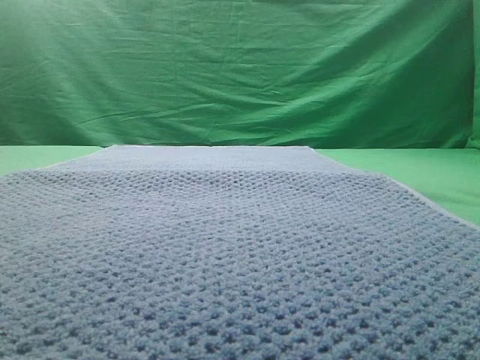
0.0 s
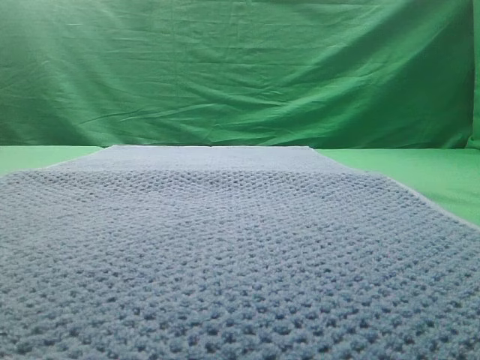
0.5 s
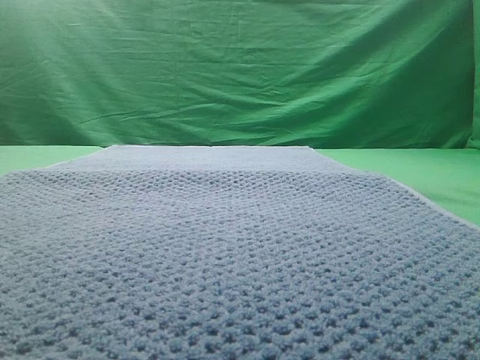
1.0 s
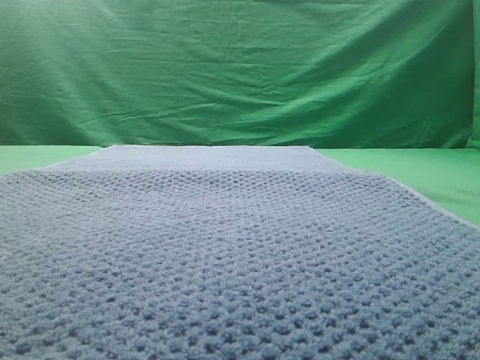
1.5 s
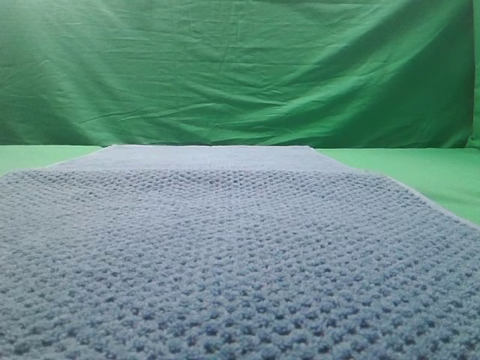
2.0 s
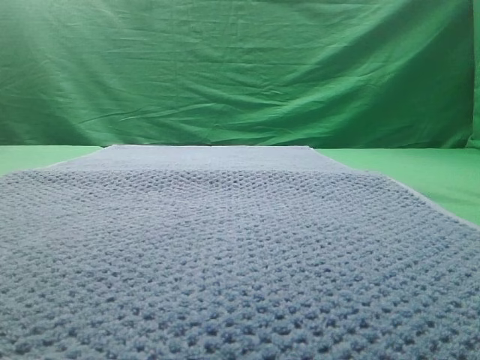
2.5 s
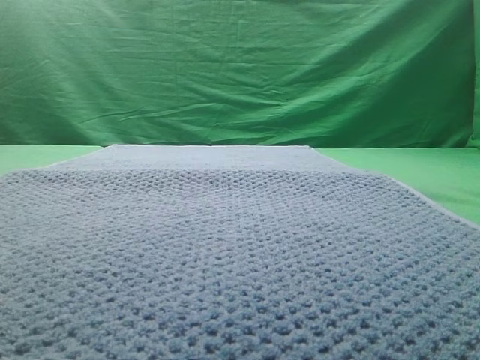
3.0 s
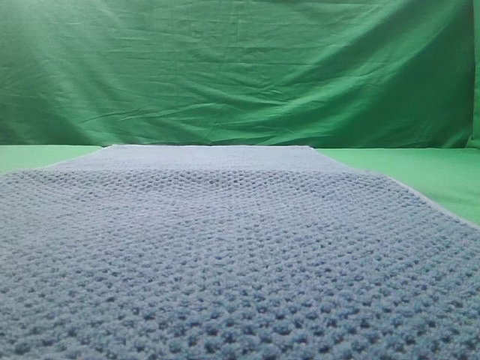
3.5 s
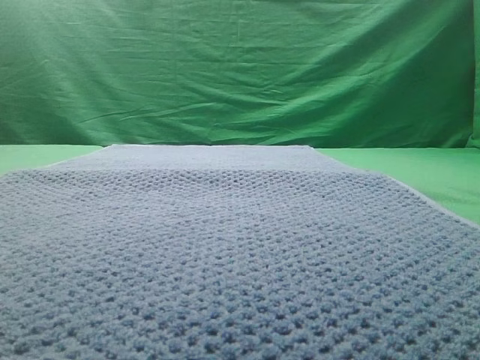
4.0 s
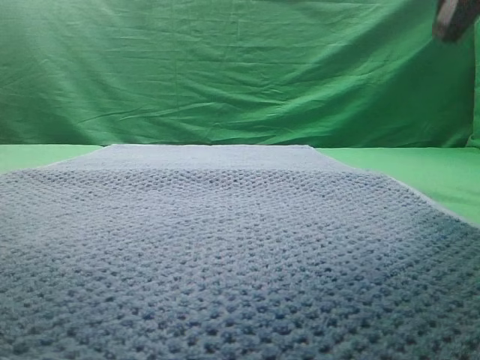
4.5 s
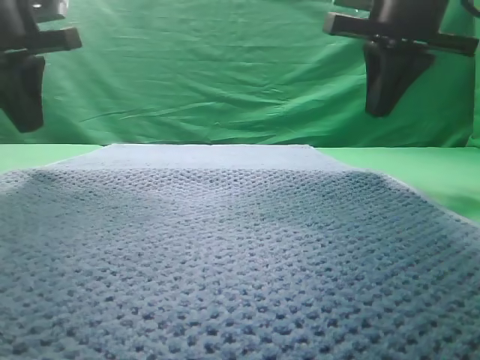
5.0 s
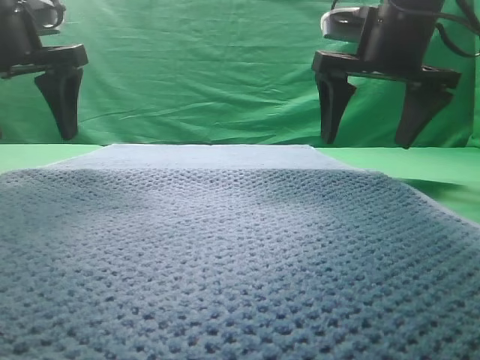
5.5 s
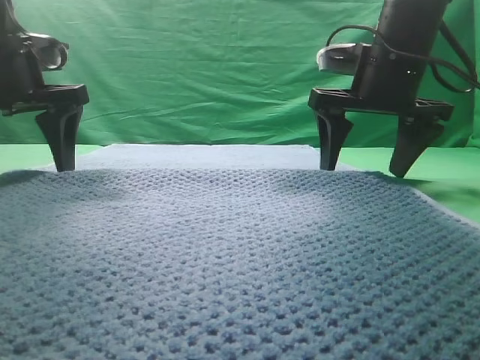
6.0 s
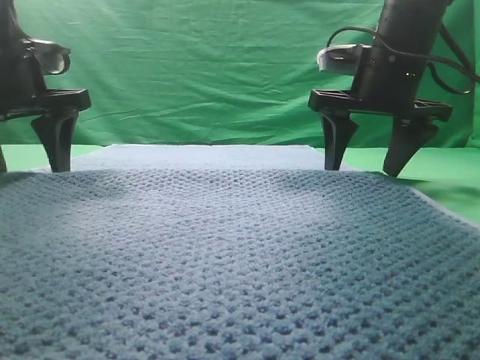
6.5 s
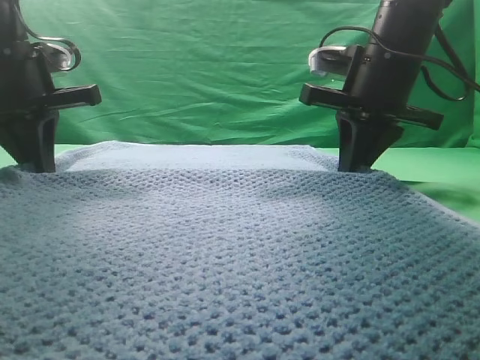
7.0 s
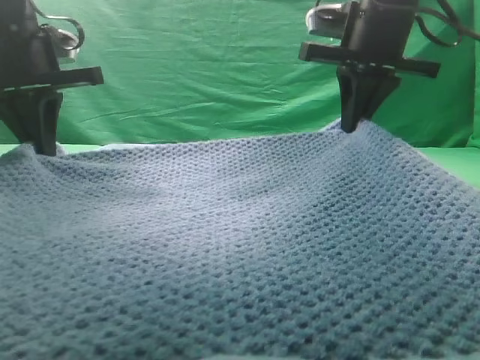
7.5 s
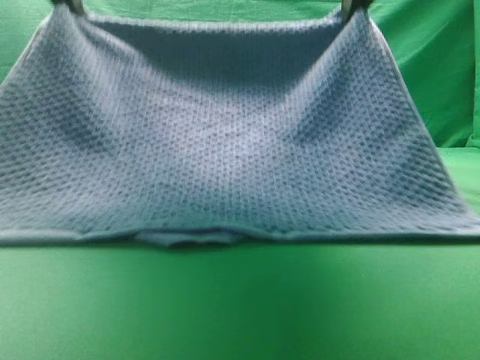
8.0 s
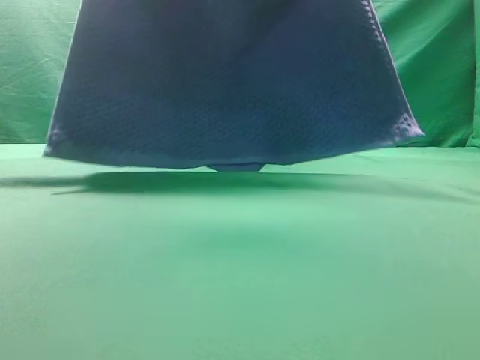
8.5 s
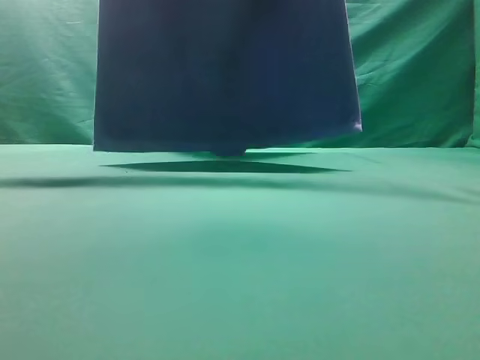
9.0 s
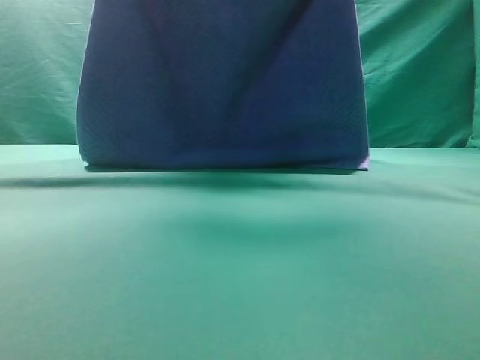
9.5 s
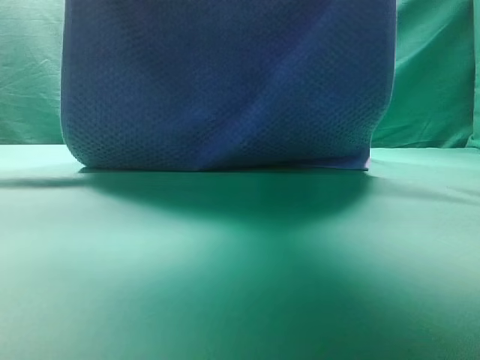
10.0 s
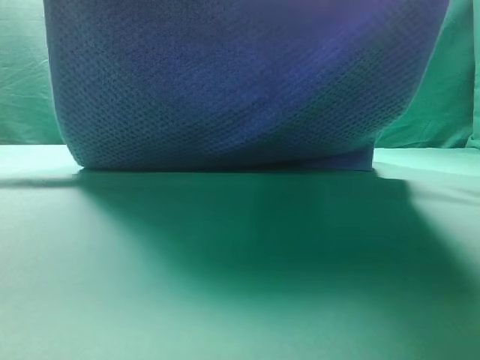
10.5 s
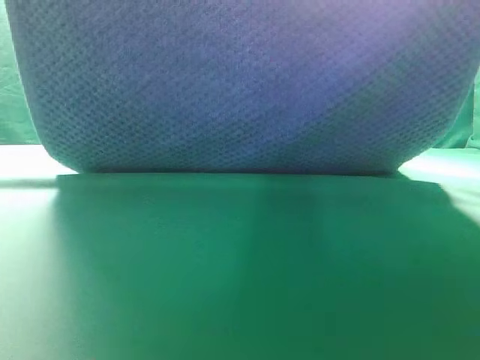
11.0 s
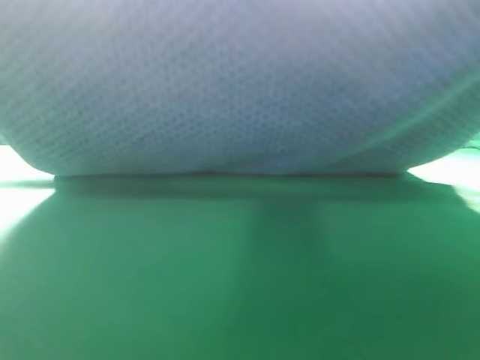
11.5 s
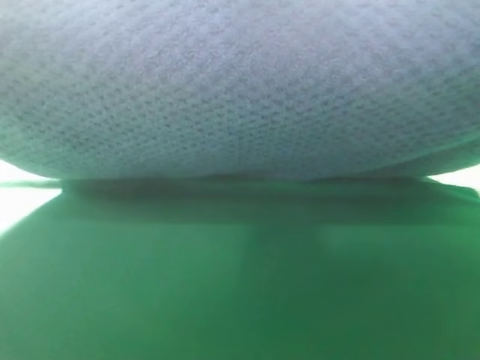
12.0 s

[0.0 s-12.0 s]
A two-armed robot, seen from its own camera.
Task of the whole recording: fold the towel on the table twice.
Step, 0.0 to 8.5 s: pick up the towel with two arm.

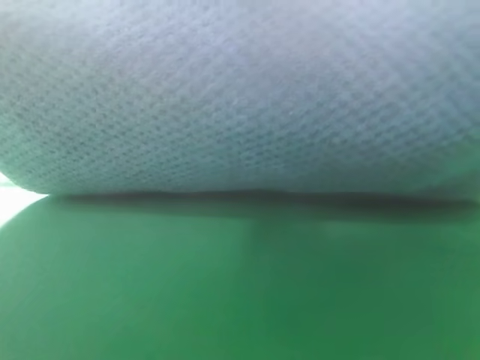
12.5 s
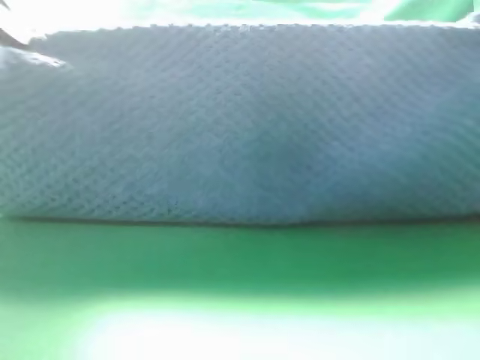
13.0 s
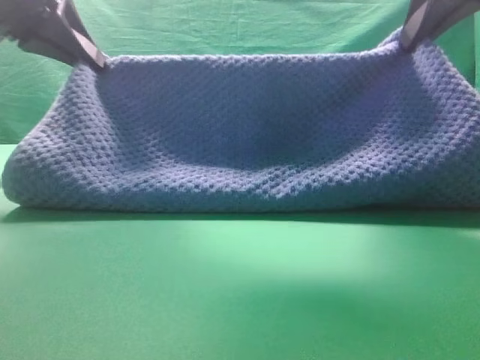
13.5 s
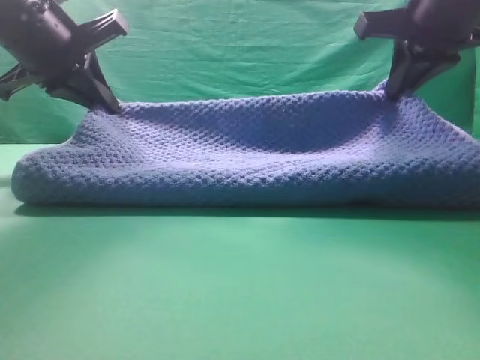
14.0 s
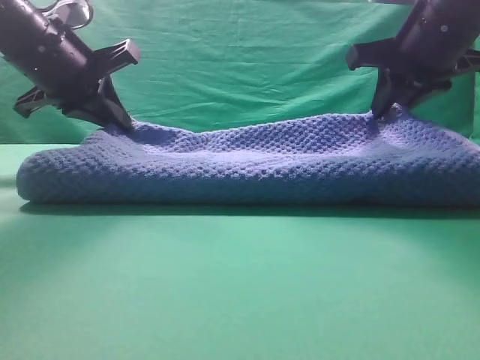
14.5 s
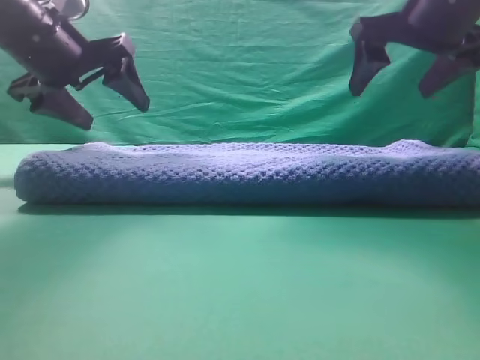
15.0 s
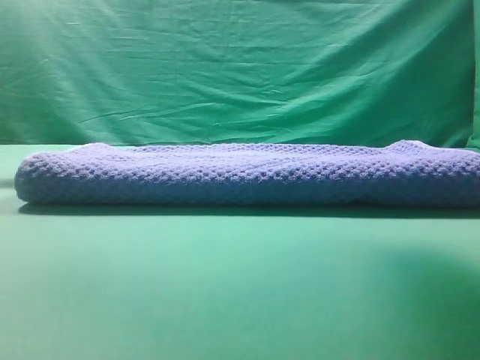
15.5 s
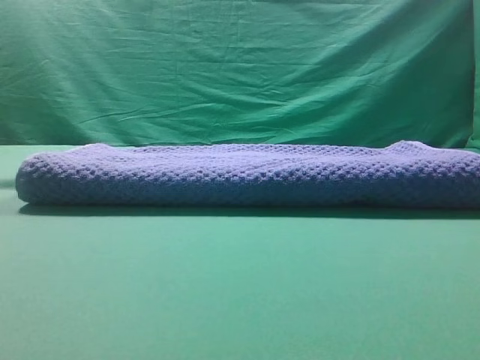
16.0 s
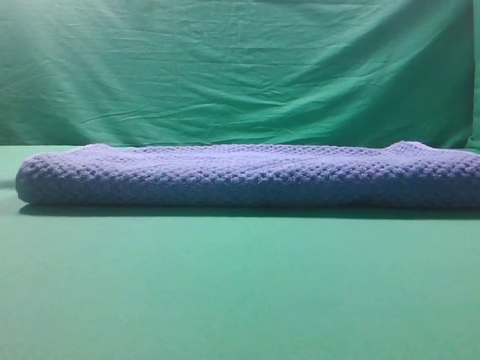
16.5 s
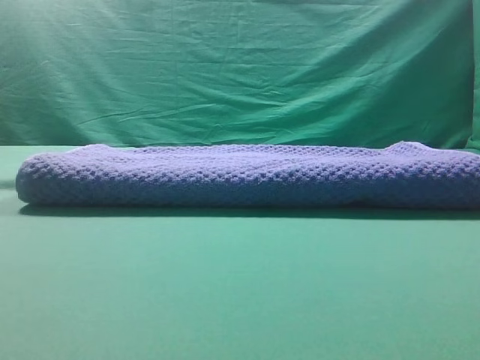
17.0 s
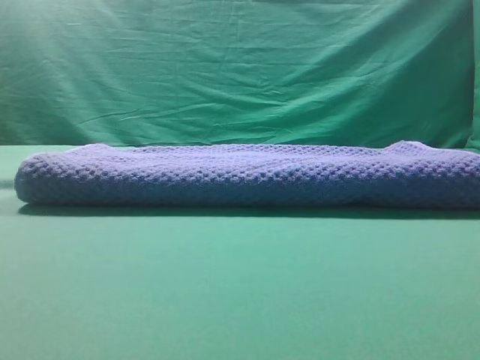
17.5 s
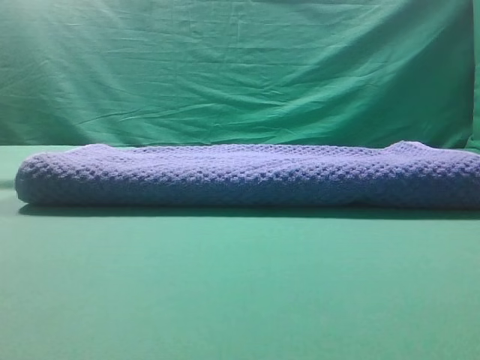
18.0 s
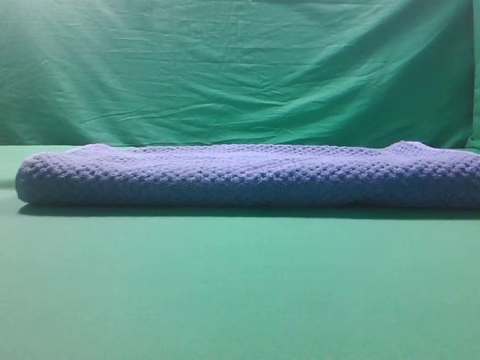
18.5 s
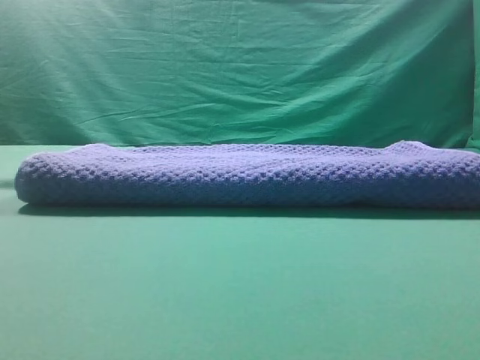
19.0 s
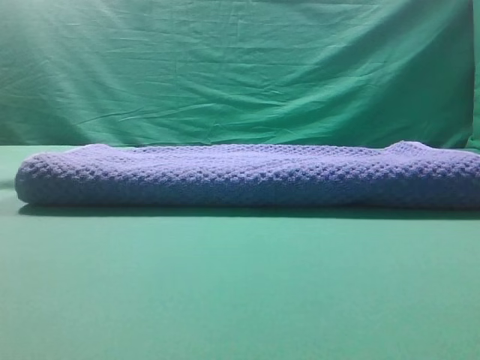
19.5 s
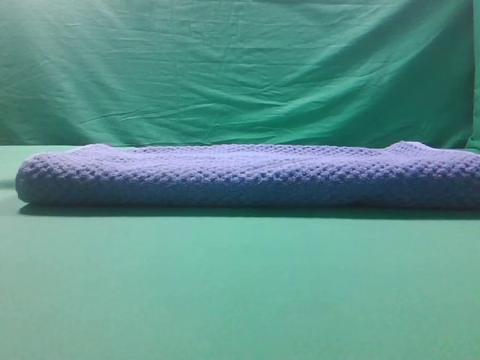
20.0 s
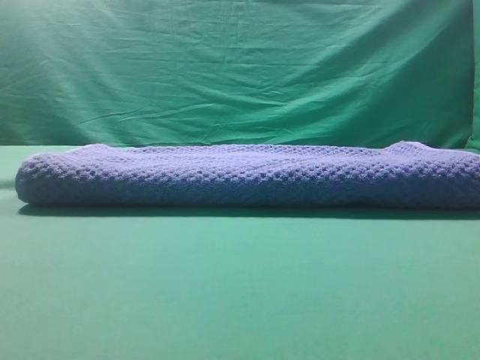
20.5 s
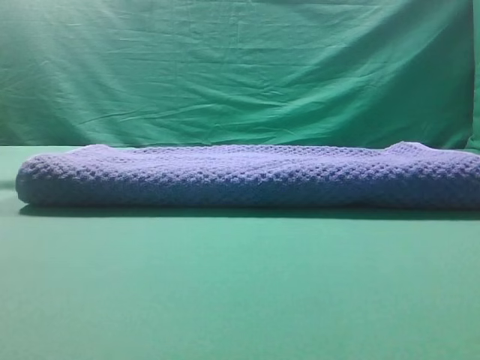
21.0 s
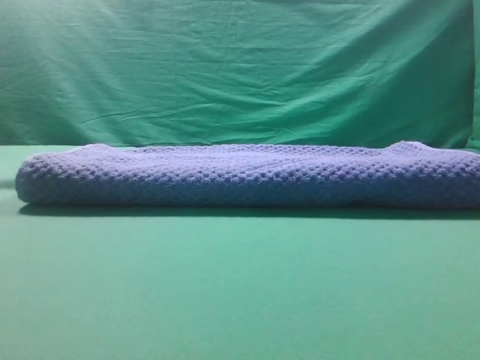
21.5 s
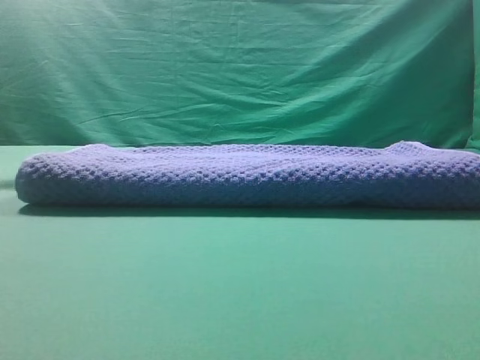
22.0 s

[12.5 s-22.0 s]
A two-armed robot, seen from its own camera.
Task of the whole recording: fold the towel on the table twice.
Step, 12.5 to 14.5 s: Fold the towel twice on the table.

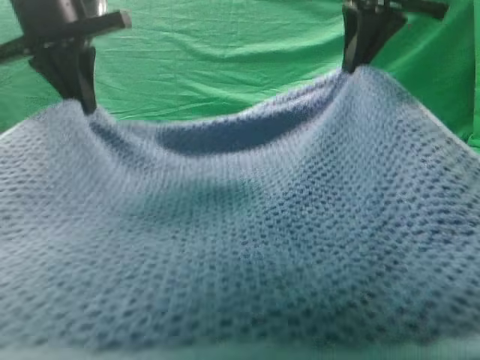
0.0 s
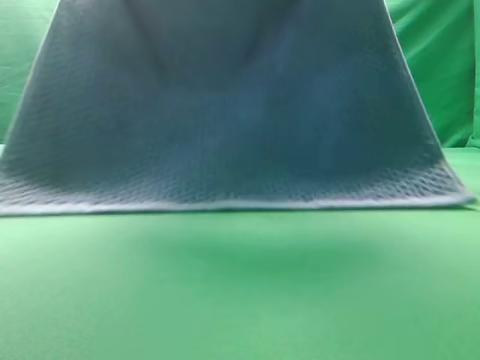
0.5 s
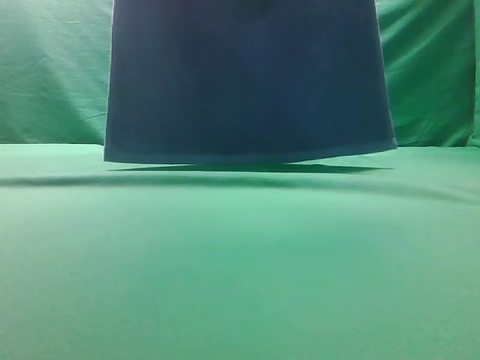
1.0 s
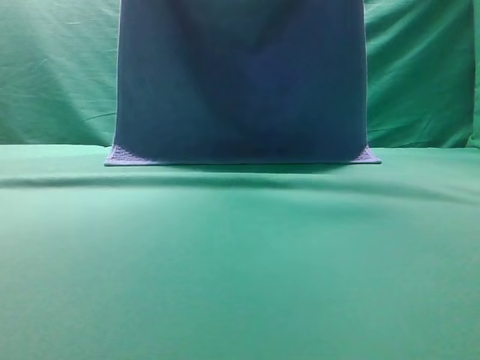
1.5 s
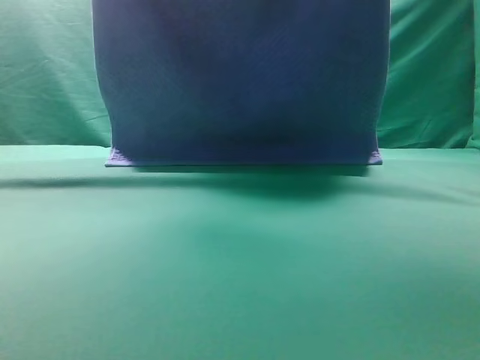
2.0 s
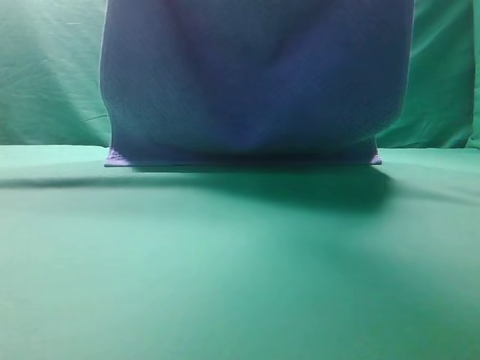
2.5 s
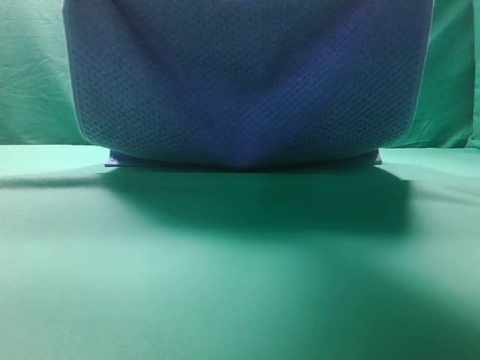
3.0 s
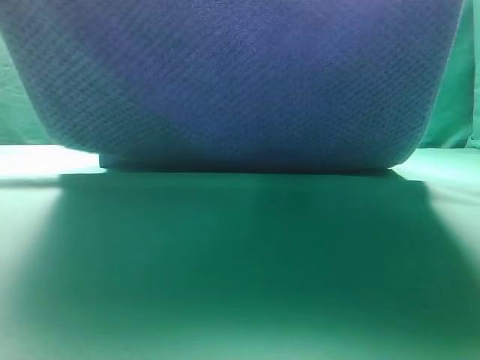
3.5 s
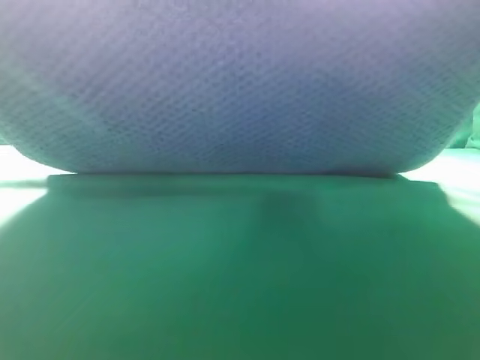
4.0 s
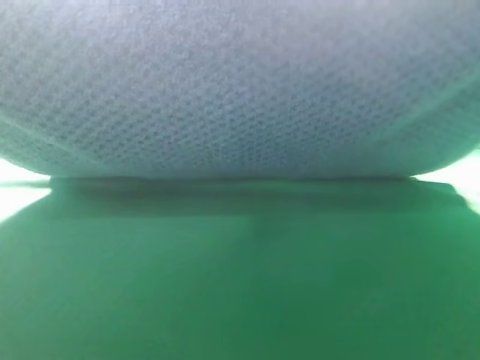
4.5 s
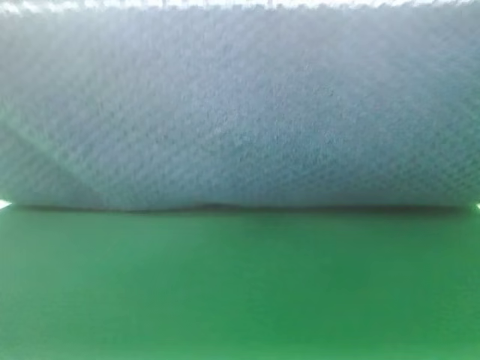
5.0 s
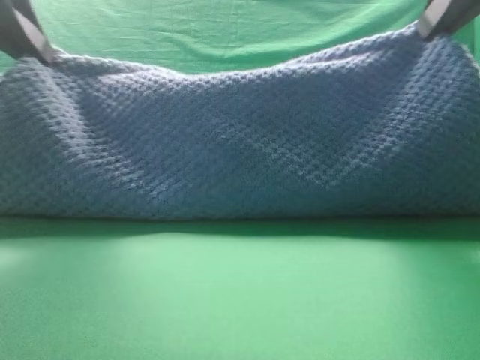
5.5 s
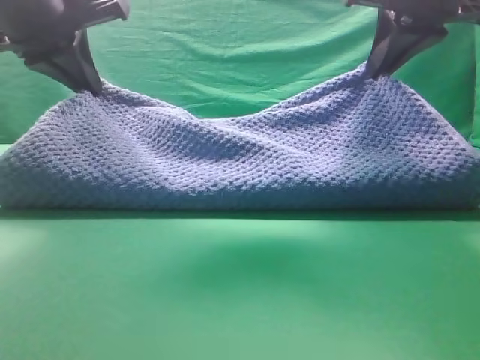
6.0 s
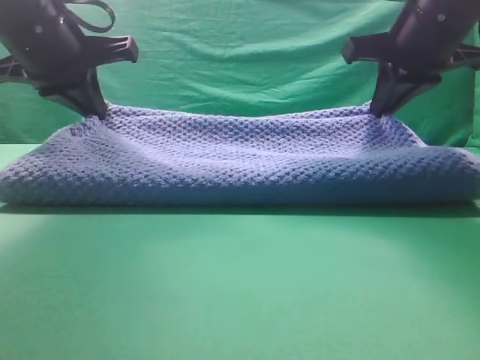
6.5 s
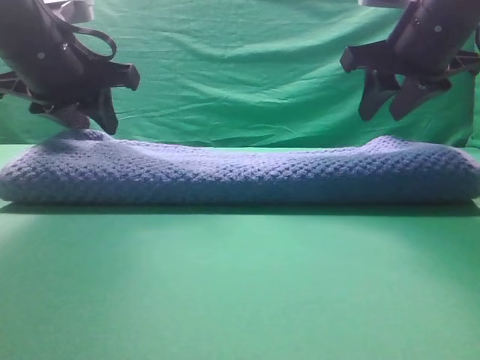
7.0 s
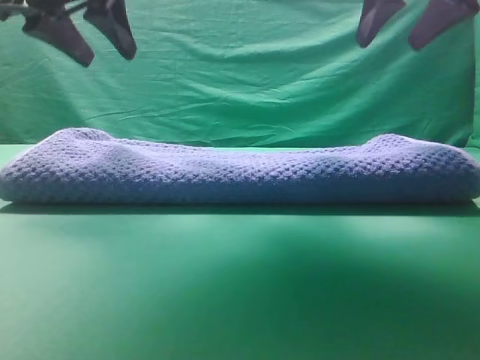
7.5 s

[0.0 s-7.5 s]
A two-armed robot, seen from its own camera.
Task of the whole recording: fold the towel on the table twice.
Step, 1.0 to 7.5 s: Fold the towel twice on the table.
